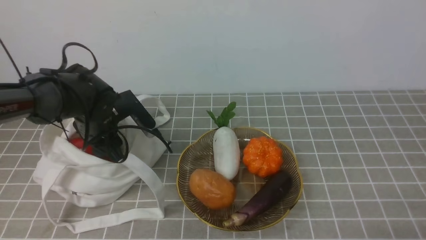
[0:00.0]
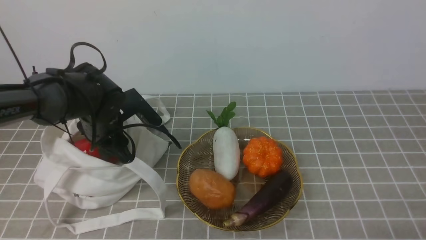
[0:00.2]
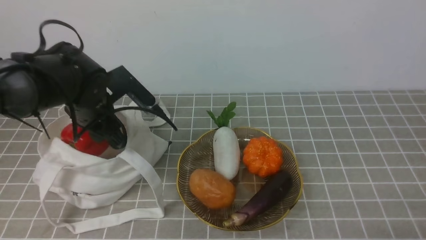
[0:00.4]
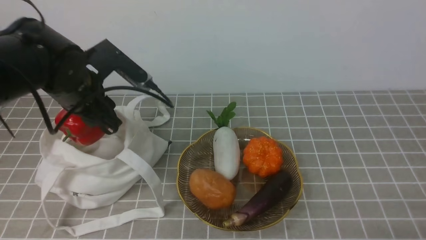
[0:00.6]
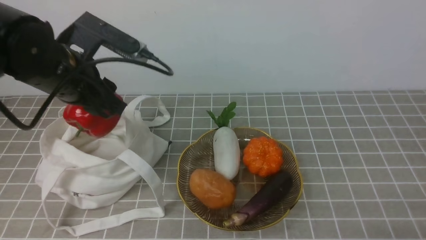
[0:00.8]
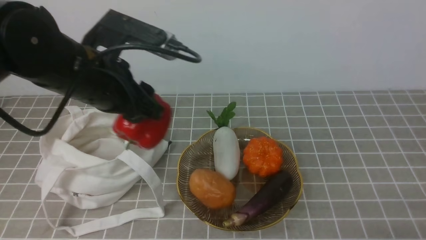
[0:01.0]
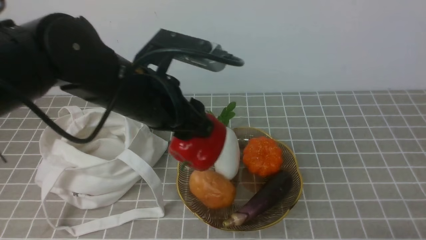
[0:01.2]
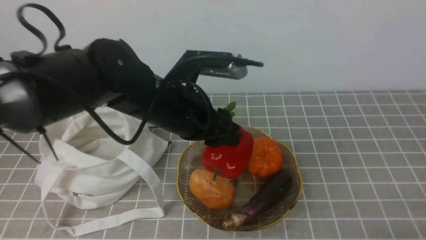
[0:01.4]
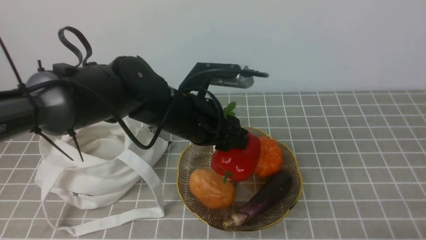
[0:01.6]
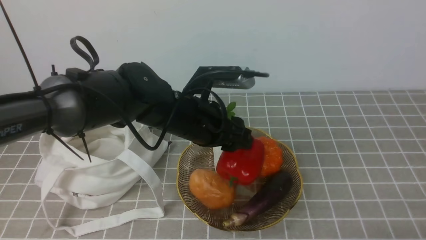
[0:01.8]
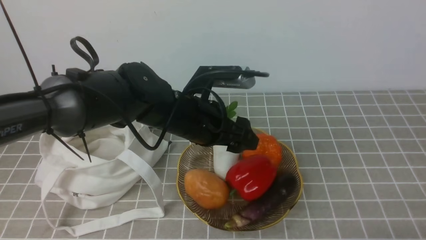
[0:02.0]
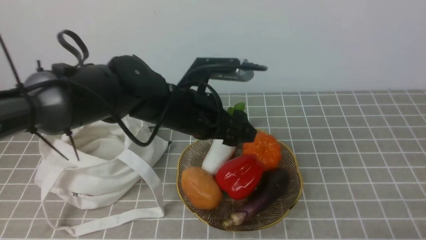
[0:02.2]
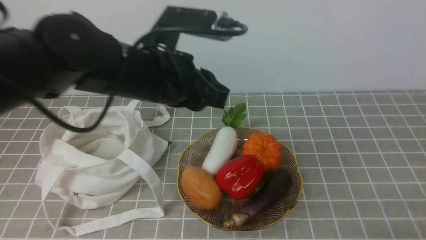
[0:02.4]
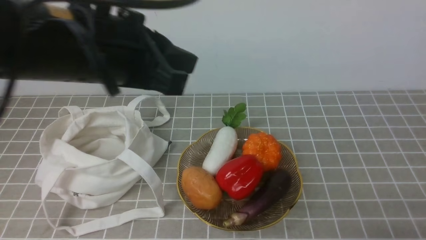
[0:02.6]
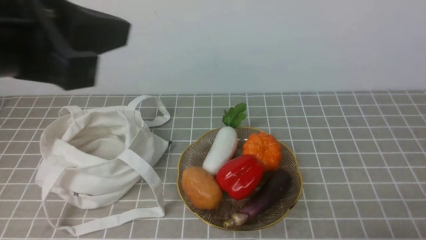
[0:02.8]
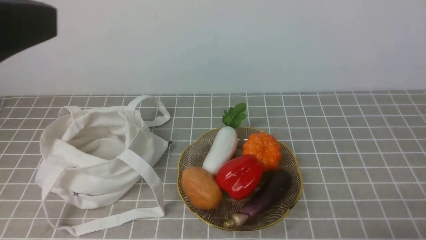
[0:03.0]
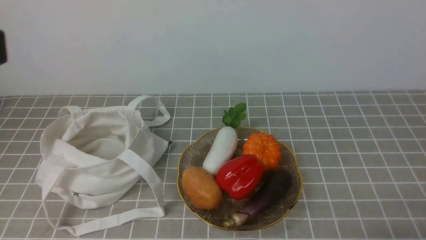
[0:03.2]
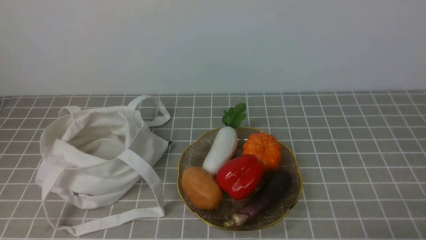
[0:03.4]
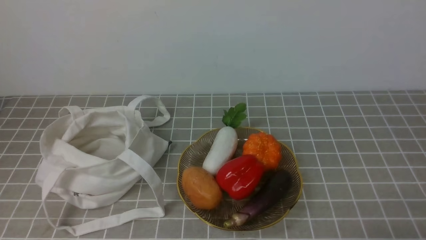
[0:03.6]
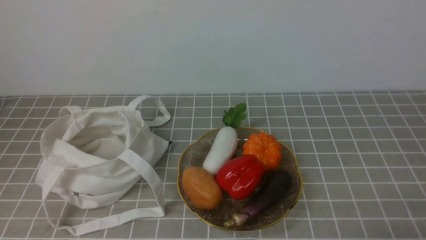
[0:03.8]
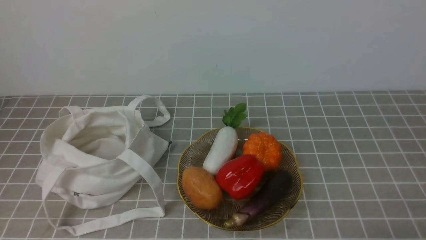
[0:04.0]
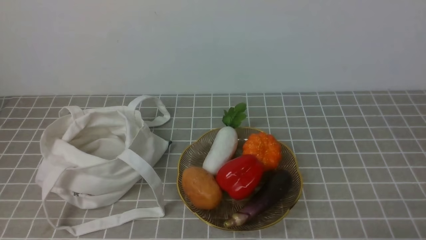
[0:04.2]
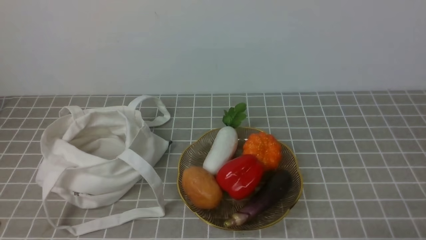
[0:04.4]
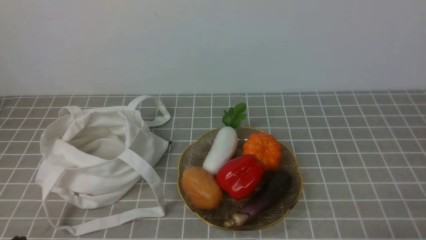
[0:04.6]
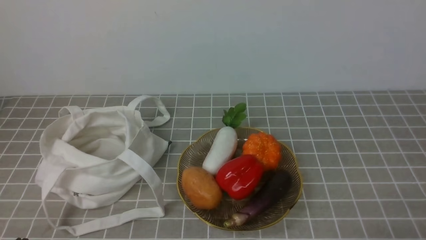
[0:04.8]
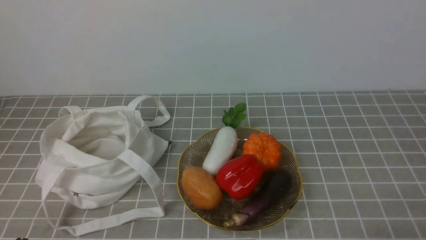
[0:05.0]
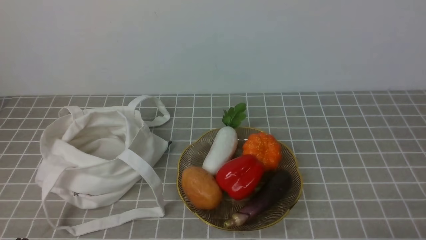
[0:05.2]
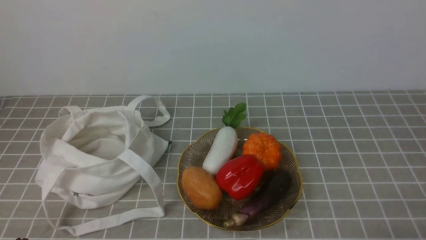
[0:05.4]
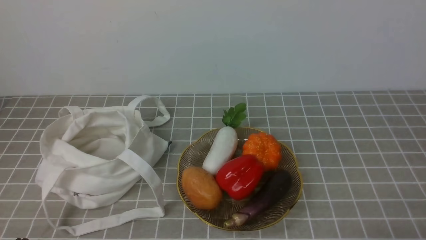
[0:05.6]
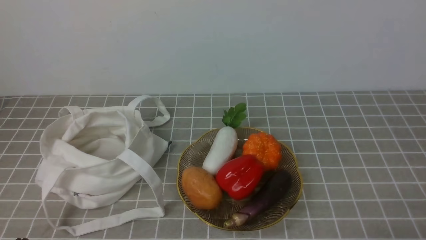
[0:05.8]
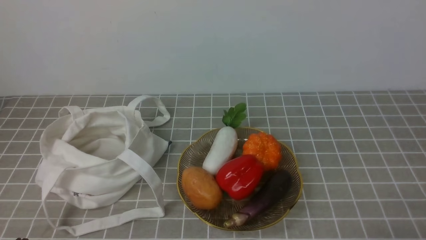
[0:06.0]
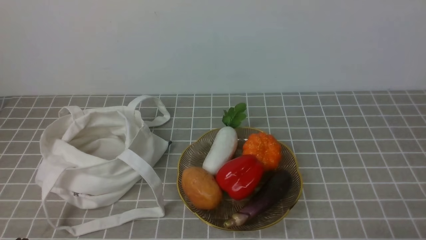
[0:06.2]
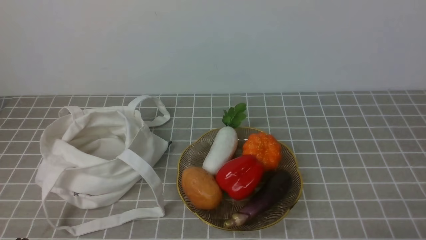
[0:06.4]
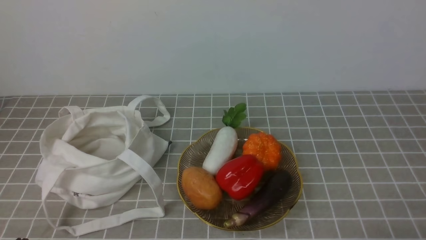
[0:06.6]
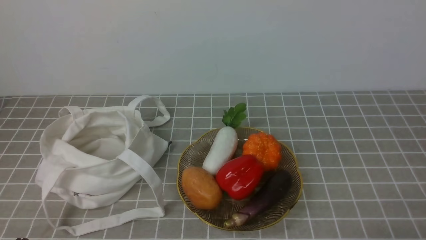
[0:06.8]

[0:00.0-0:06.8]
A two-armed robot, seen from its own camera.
Task of the whole recording: take vegetables from bag on grey coffee tablecloth place on plate.
Step, 0:00.2 to 0:02.4: Place the bell pepper on the plate with left gripper.
0:00.0 to 0:01.4: The left gripper moves to the right, upward and backward, approximately 20 cm.
0:01.4 to 0:02.8: The left gripper heads upward, backward and to the left, covering about 20 cm, and closes up.
0:02.8 to 0:04.0: The left gripper is displaced backward and to the left by approximately 20 cm.
0:05.4 to 0:06.8: Both grippers stay about where they are.
